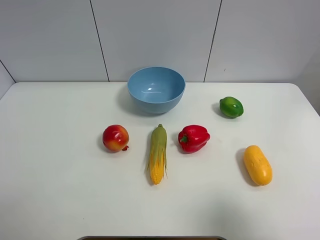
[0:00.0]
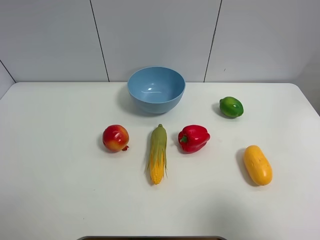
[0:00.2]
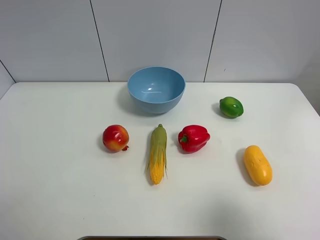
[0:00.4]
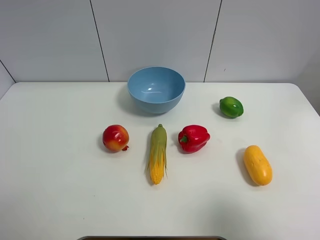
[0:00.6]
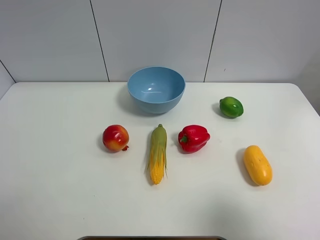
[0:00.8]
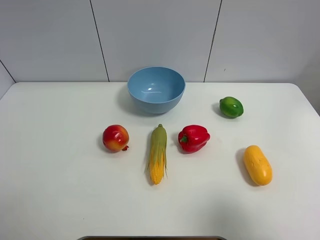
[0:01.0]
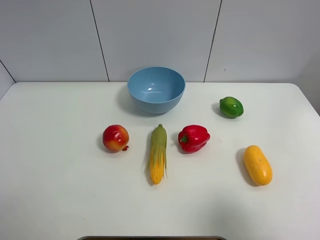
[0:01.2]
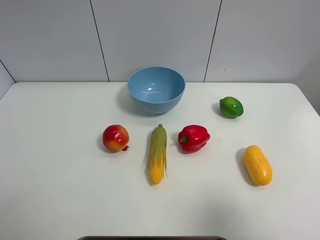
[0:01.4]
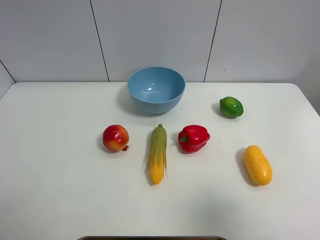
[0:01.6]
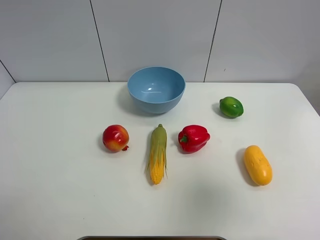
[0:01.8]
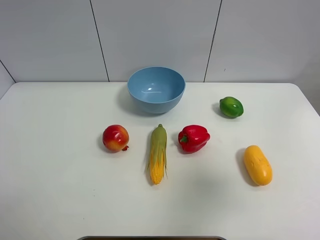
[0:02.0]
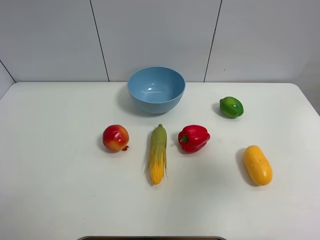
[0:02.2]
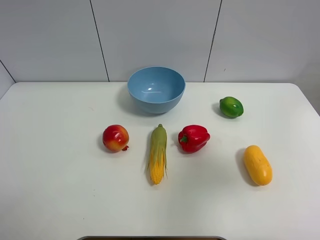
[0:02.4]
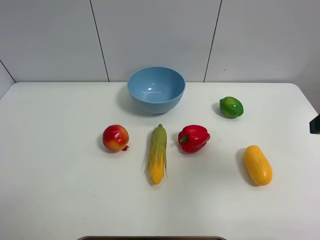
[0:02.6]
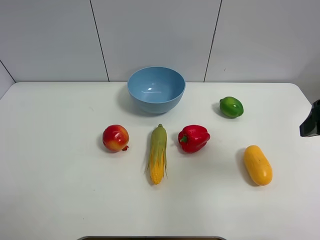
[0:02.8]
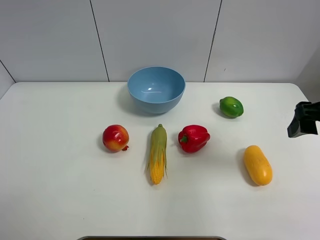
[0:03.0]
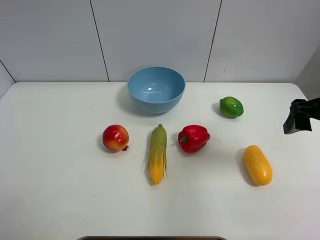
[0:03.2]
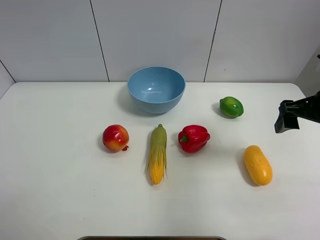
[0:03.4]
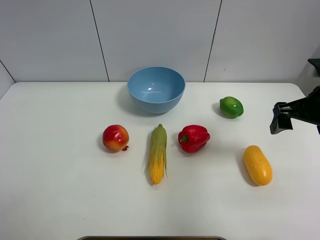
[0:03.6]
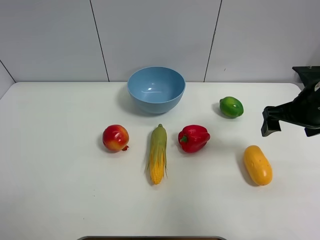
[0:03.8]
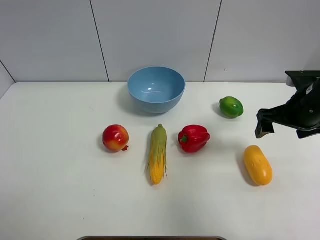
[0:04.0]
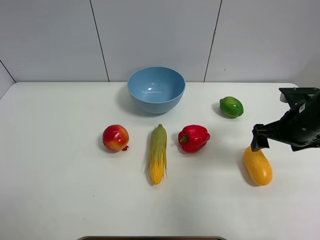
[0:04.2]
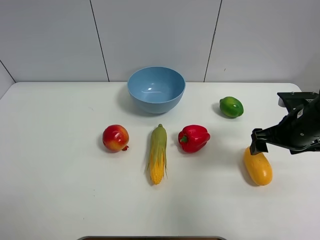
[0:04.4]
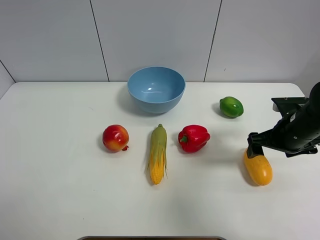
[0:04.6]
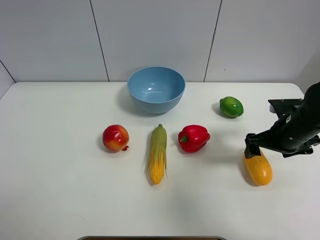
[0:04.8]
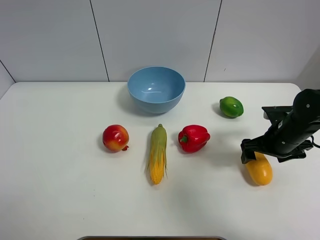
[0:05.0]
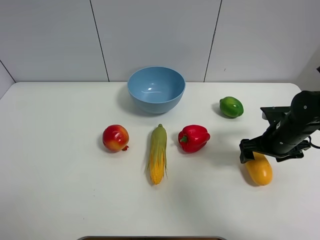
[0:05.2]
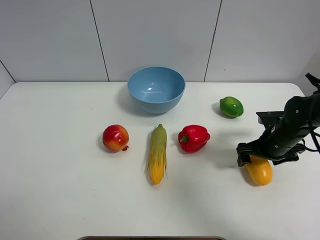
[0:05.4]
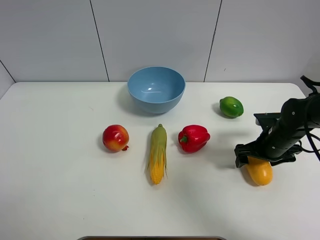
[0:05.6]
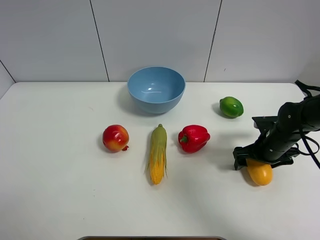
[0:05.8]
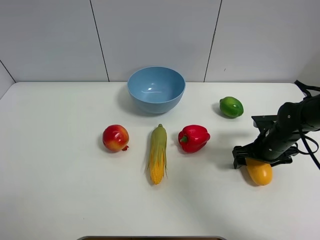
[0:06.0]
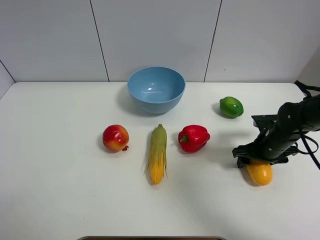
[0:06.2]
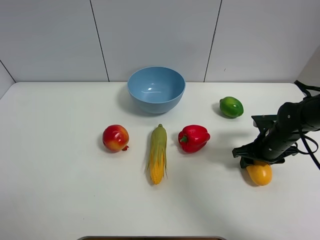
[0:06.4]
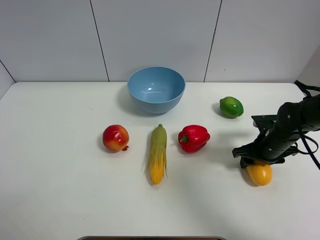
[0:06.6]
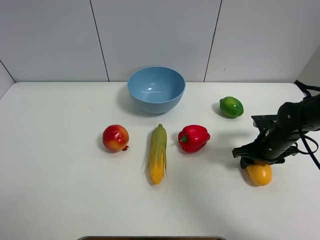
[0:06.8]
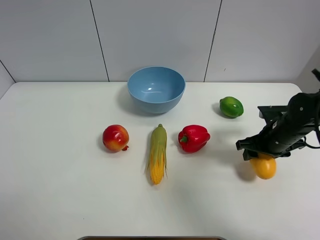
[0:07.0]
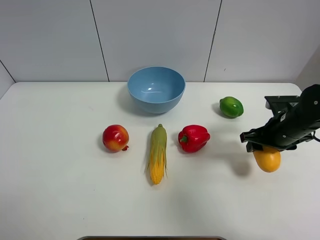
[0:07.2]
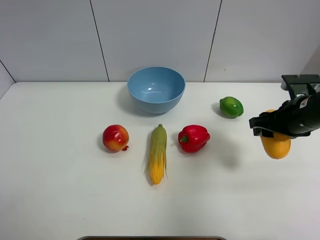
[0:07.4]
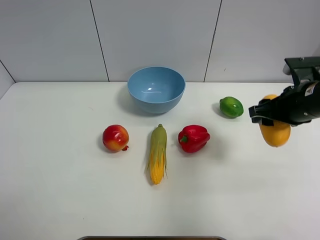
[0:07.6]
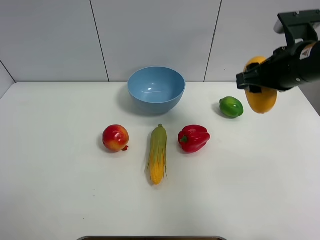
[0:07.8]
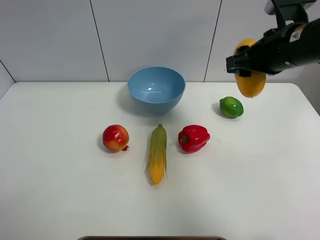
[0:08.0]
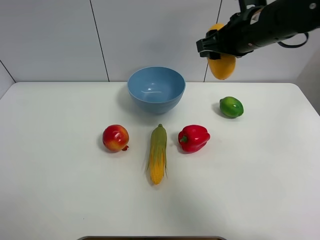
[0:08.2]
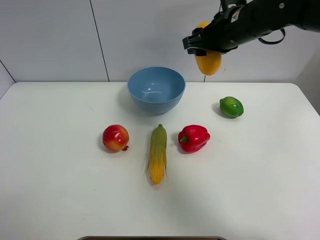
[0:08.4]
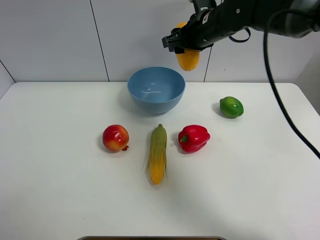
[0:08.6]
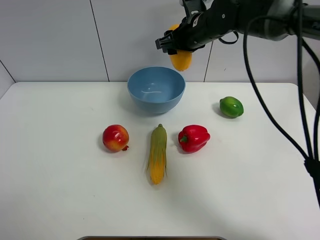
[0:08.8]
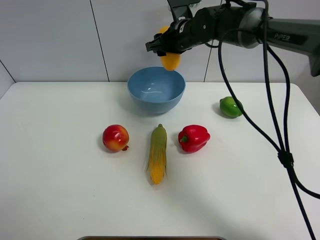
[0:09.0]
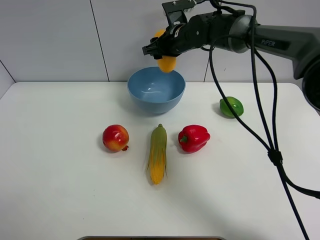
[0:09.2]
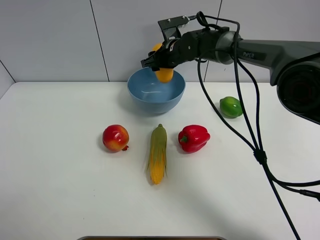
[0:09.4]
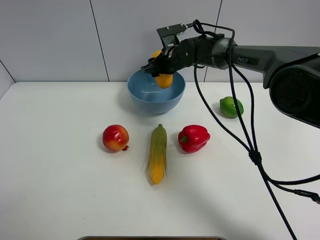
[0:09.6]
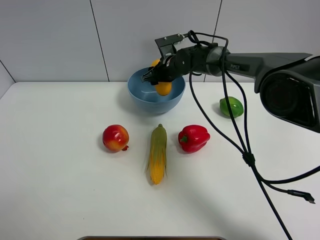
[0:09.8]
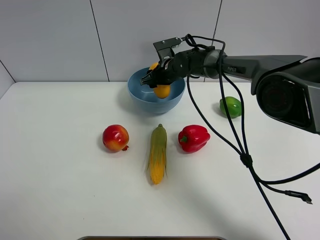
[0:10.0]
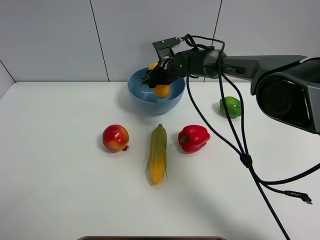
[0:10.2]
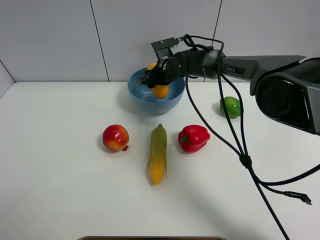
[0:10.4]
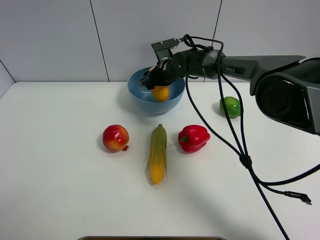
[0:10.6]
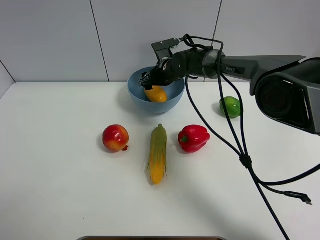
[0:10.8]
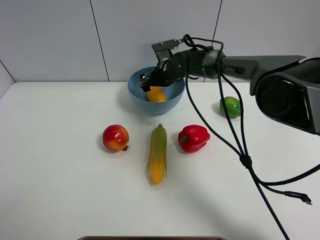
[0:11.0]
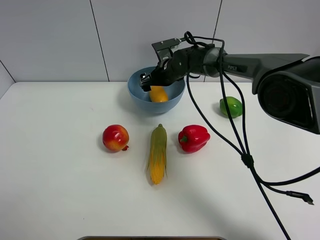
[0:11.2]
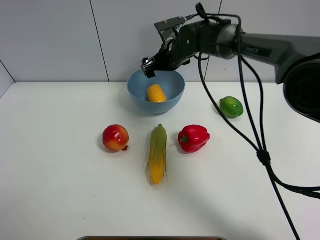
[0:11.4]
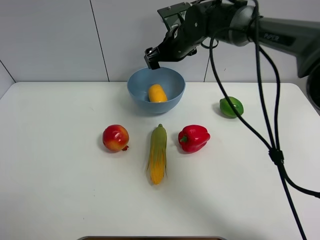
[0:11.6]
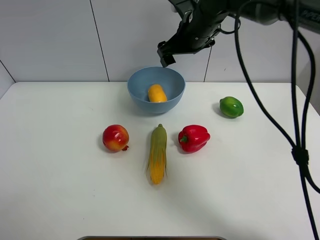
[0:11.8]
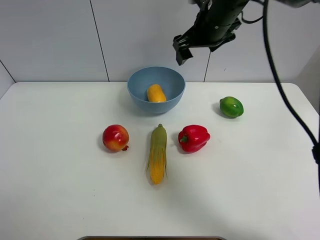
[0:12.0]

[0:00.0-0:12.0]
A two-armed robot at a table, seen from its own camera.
Task of the whole recording: Put the three fruits on the table into a bowl.
Step, 0:00.0 to 0:06.4: Grasp the mango with right gripper.
Step, 0:06.6 to 0:11.0: Place the mango in the blue bowl with right gripper.
0:01.6 to 0:03.0: The right gripper heads forward, covering about 20 cm, and opens.
0:03.0 to 0:04.4: The right gripper moves downward and forward, approximately 15 cm.
0:04.4 to 0:06.0: The right gripper goes approximately 10 cm downward.
0:06.0 to 0:07.6: The right gripper heads upward, covering approximately 15 cm, and closes its fingers.
0:07.6 to 0:09.0: The right gripper moves forward and to the left, approximately 30 cm.
0:09.0 to 0:10.4: The right gripper is displaced downward by approximately 10 cm.
0:10.4 to 0:12.0: The right gripper shifts about 20 cm upward, backward and to the right, and opens up.

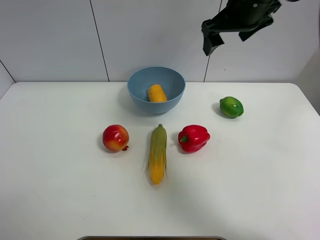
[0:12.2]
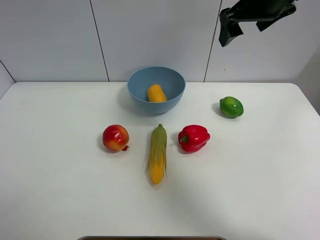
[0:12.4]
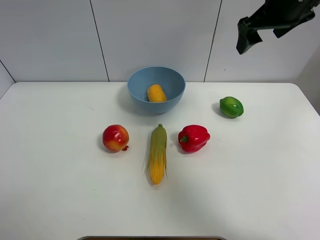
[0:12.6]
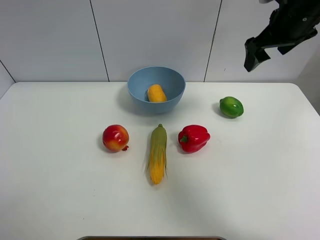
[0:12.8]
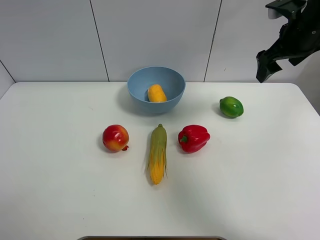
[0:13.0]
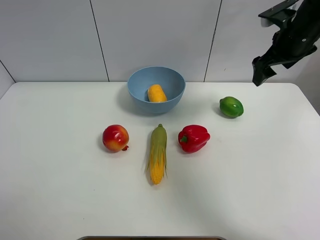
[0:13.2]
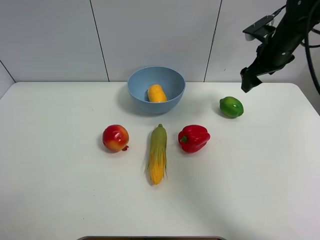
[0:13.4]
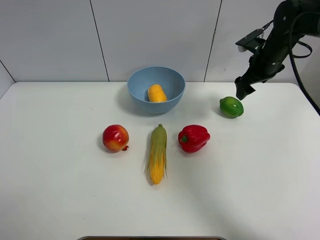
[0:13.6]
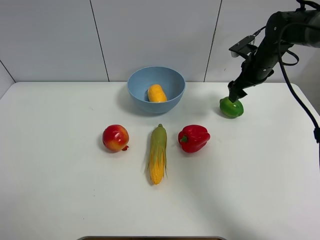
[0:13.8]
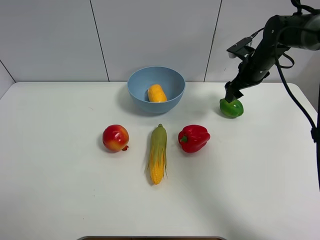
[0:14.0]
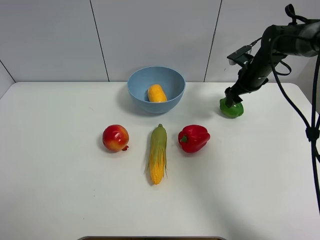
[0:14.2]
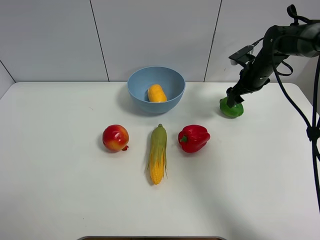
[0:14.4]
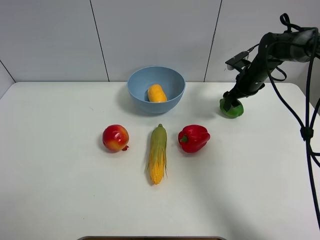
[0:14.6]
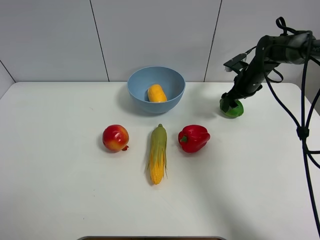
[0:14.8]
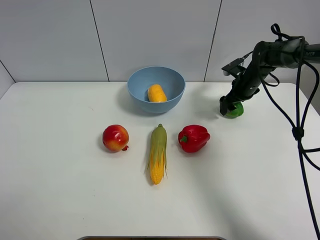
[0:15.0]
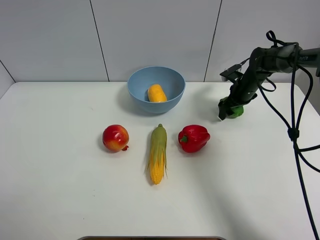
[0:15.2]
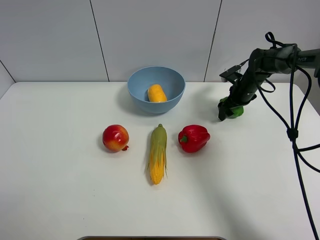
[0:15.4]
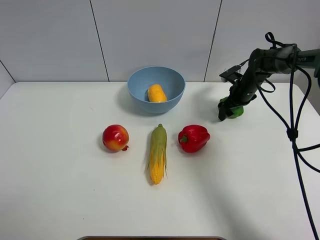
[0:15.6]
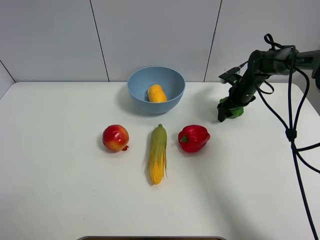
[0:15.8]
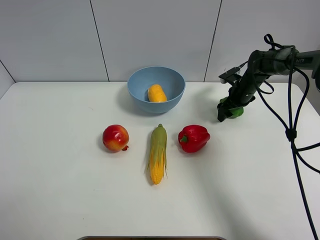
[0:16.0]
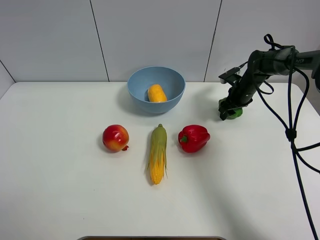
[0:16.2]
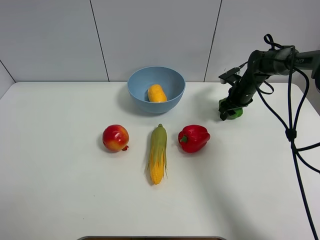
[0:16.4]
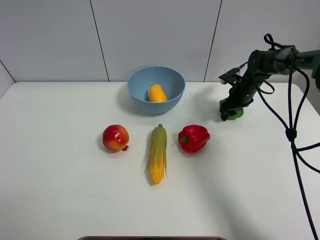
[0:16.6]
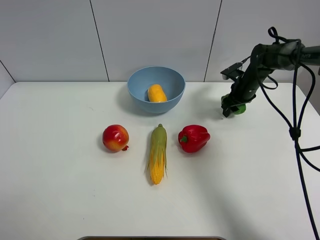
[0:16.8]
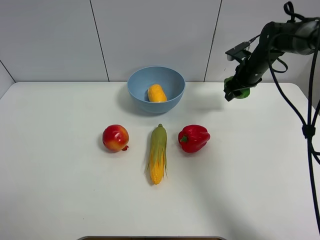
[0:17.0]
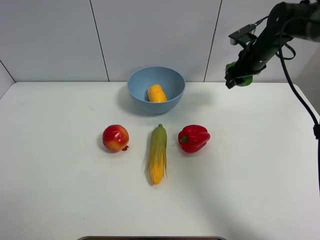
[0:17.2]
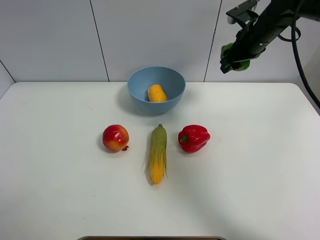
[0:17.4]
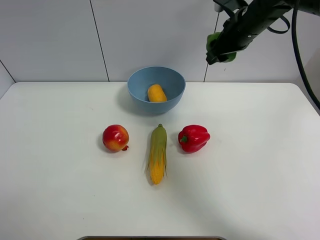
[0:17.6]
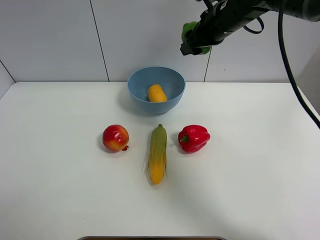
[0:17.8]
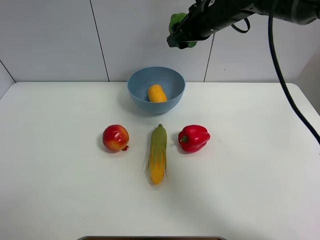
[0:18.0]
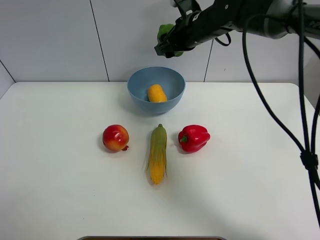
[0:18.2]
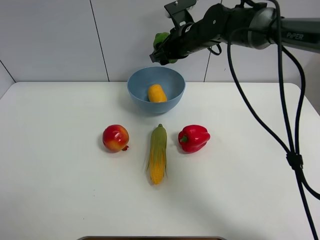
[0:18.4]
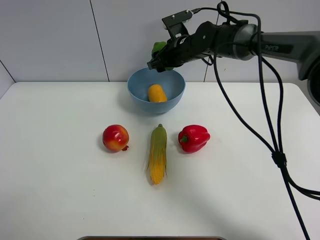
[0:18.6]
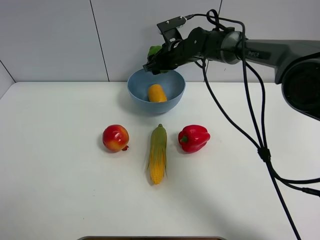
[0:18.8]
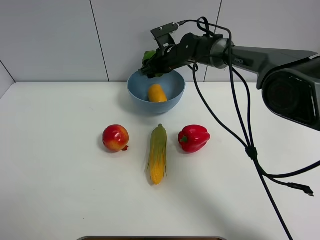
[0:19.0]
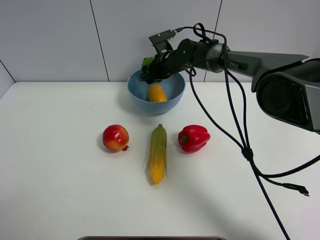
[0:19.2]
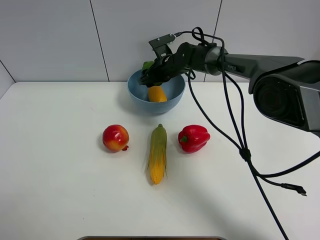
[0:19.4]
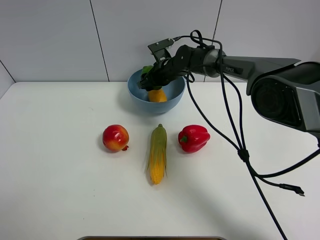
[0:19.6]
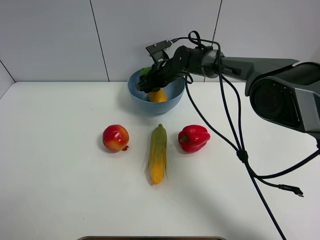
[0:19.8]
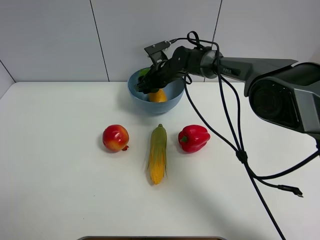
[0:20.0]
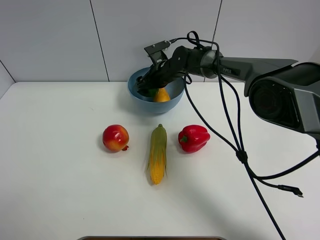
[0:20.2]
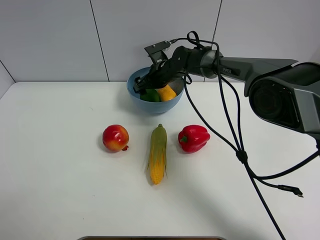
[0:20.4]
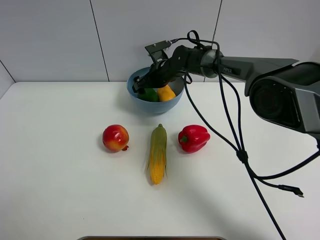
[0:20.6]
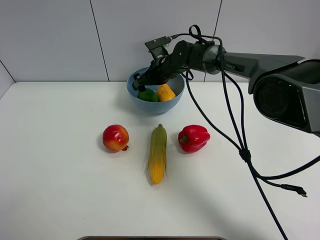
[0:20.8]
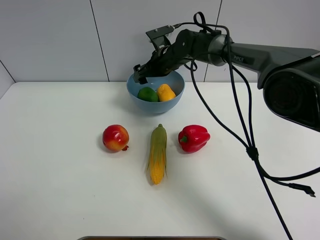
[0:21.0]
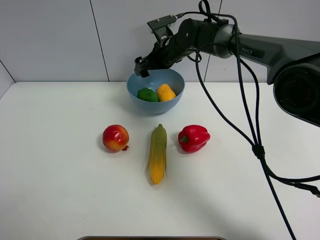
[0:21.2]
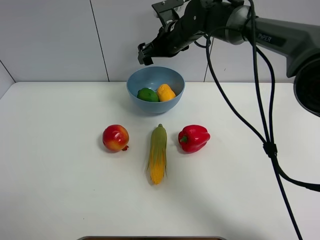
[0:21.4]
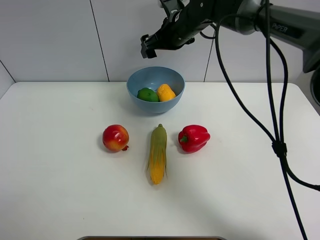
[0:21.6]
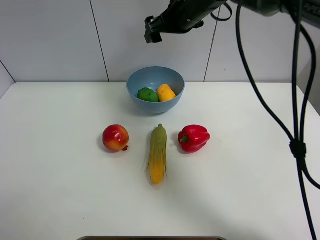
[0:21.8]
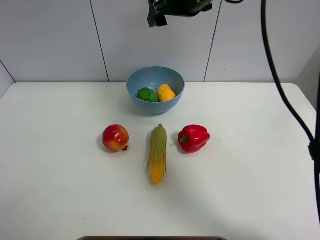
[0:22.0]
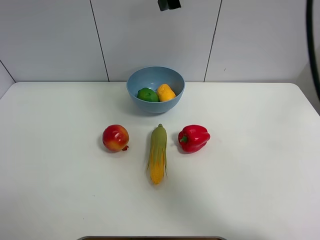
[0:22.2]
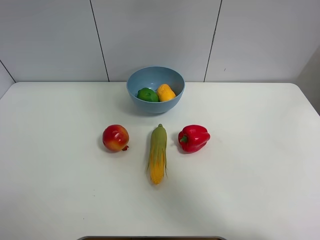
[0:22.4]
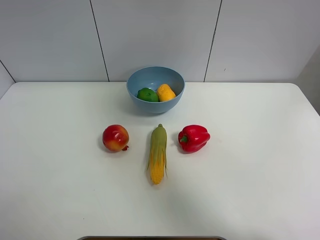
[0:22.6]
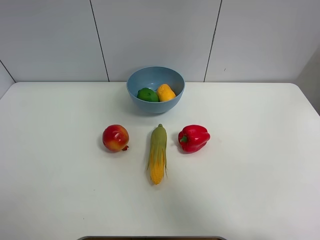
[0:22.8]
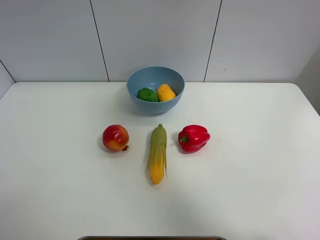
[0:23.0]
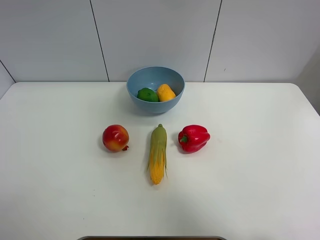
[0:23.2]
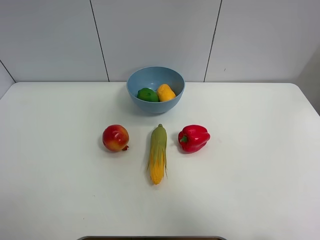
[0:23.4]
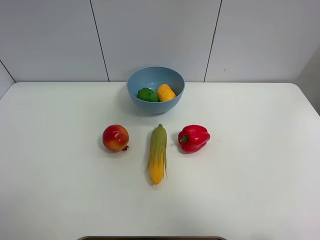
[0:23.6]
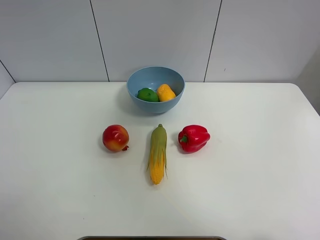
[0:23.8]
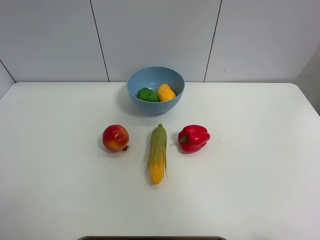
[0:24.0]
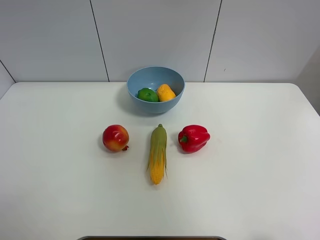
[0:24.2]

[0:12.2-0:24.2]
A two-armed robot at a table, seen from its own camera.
Task of the whole recording: Put the three fruits on the table into a bowl.
Step, 0:12.2 to 0:16.2: Grasp the green lemon with right gripper.
Step, 0:16.4 to 0:20.4: Place the green lemon in the blue bowl with right gripper.
0:12.2 to 0:13.8: The right gripper travels downward, to the right and forward by about 20 cm.
0:13.8 to 0:15.2: The right gripper travels downward by roughly 10 cm.
0:15.2 to 0:16.6: Both grippers stay put.
0:16.6 to 0:18.2: The right gripper goes some 25 cm to the left and upward.
0:18.2 to 0:19.8: The right gripper shifts about 15 cm downward.
0:19.8 to 0:21.2: The right gripper goes some 5 cm upward.
0:21.2 to 0:22.6: The right gripper is displaced upward, backward and to the right by about 35 cm.
0:22.6 to 0:24.2: The right gripper shifts approximately 30 cm backward and to the right.
